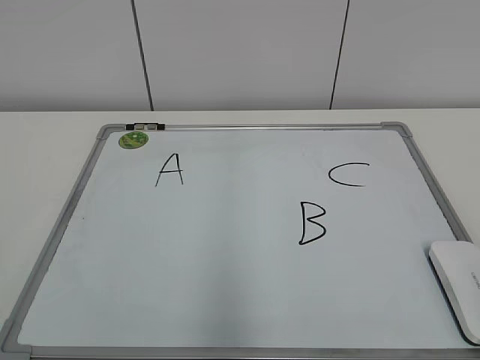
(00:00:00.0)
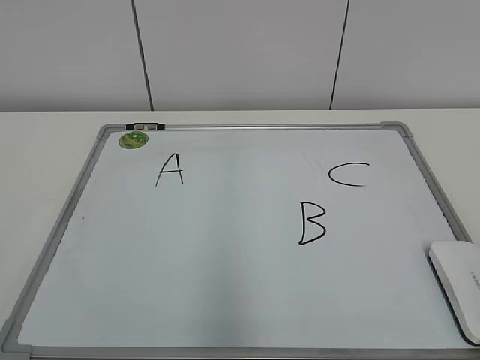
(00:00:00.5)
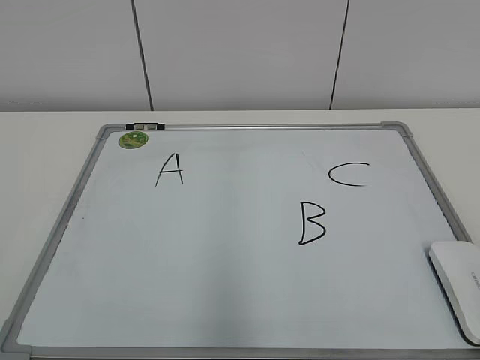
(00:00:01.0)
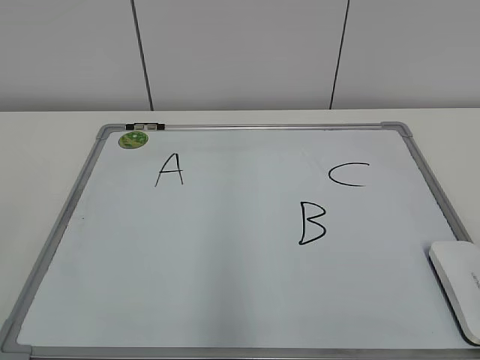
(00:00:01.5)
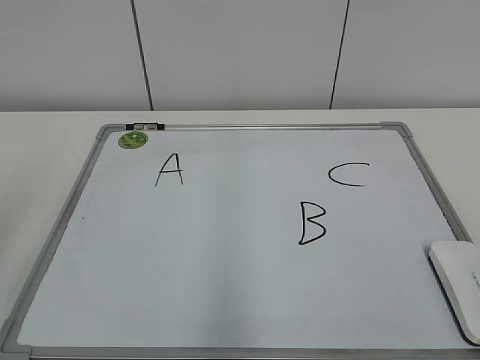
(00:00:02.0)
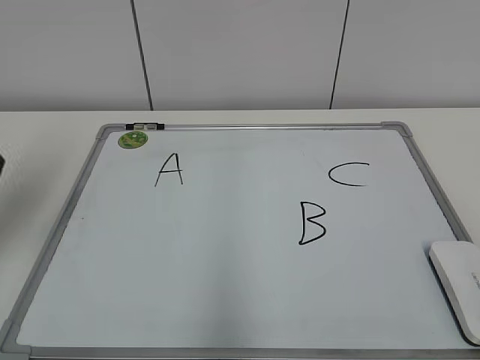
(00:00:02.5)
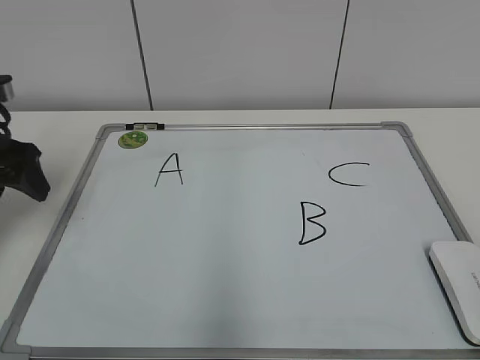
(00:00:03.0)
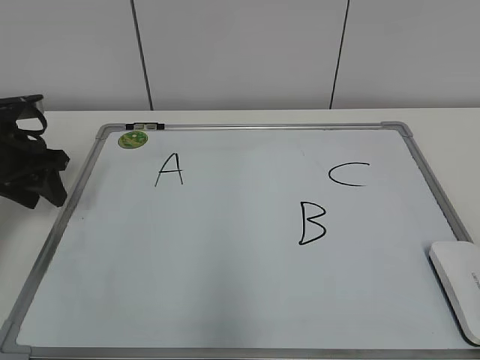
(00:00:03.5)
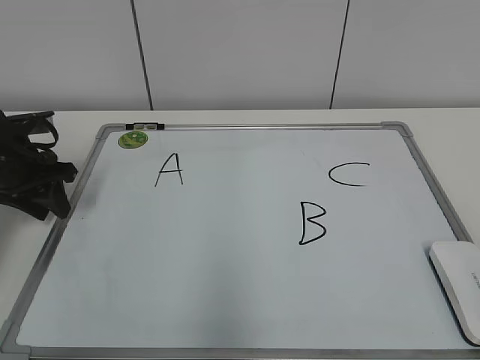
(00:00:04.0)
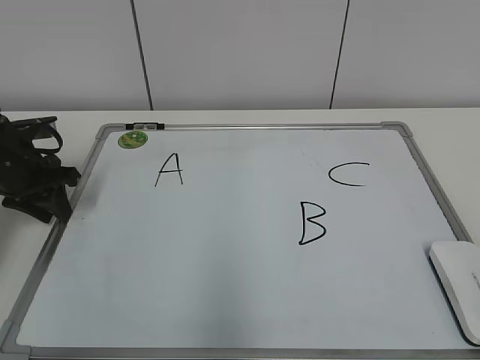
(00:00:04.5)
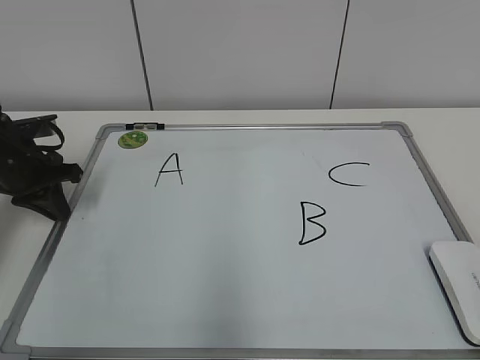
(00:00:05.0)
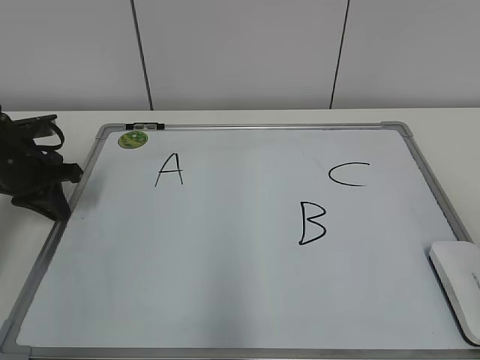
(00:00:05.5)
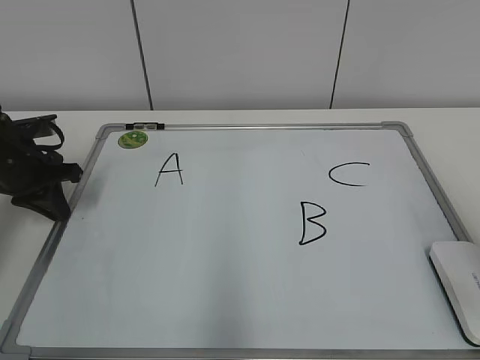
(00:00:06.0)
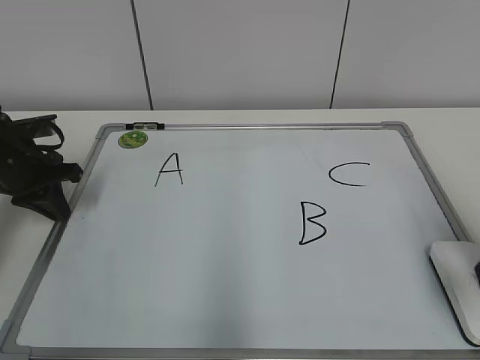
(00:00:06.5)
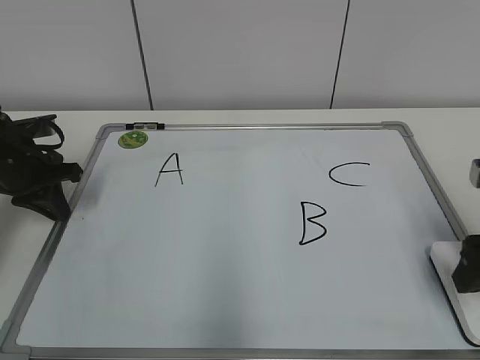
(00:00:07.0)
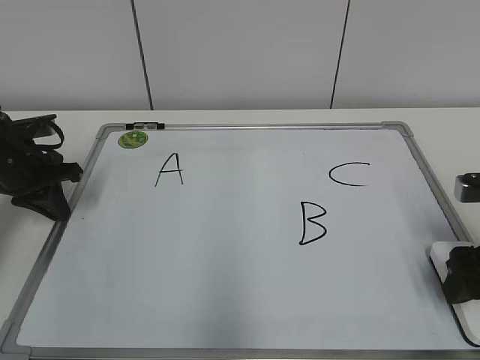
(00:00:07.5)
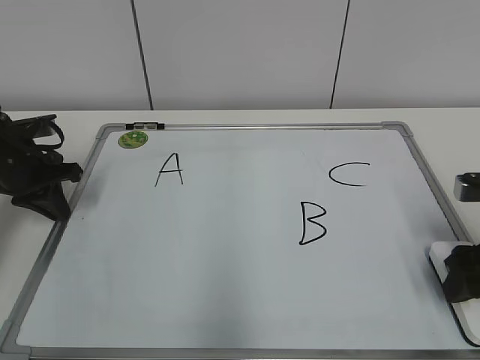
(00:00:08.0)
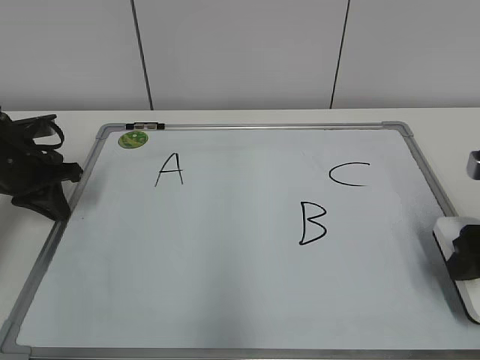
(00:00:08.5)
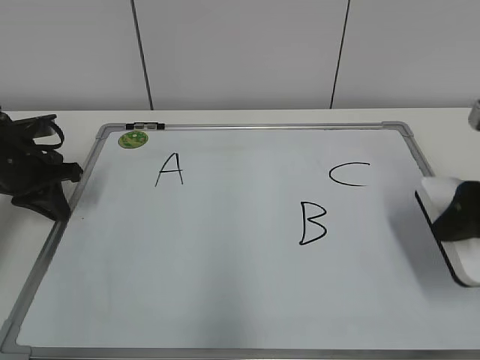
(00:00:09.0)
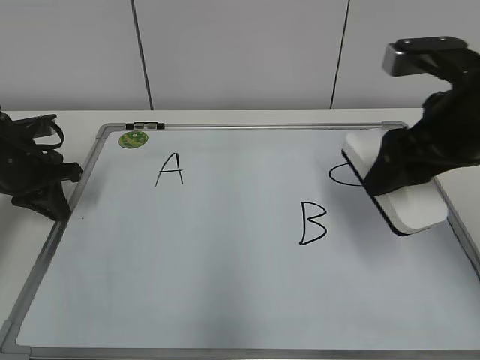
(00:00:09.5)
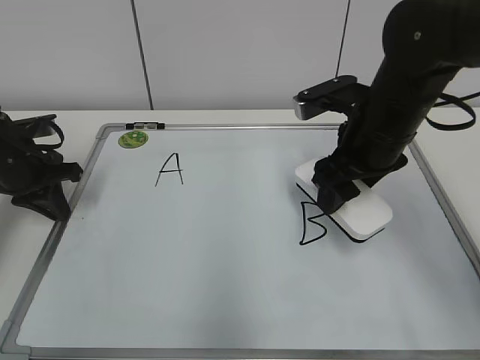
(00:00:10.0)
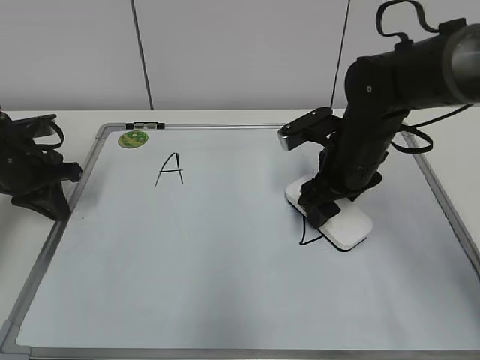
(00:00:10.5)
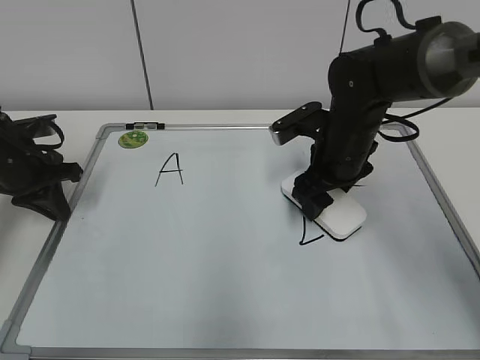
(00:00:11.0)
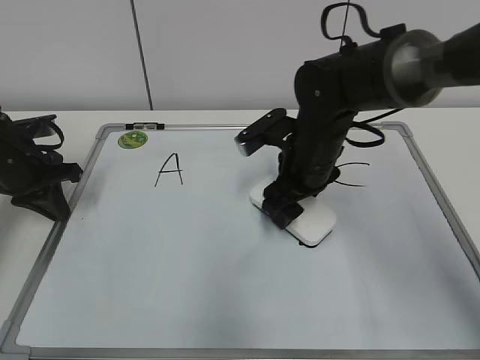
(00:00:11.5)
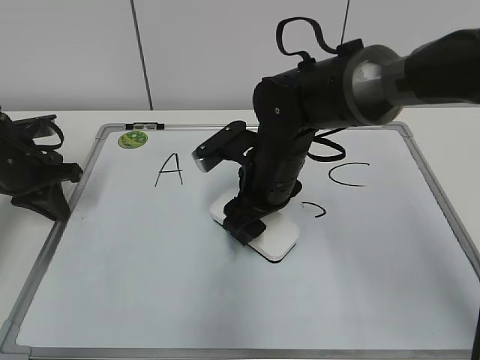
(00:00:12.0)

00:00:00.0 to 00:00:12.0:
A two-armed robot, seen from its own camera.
Task of the whole recording: pick up the eraser on the blackboard and erase the letter "B".
Step, 00:00:00.0 to 00:00:04.5: Hold the drawing board steady with your left hand.
Step, 00:00:05.0 to 00:00:08.0: Grab the eraser with your right hand.
00:00:02.0 to 00:00:04.0: The left gripper heads forward and downward, covering about 30 cm, and closes up.
00:00:04.0 to 00:00:06.0: The left gripper closes.
00:00:06.0 to 00:00:08.0: The right gripper moves downward and forward, approximately 15 cm, and opens, then closes once more.
00:00:08.0 to 00:00:10.0: The right gripper moves to the left, forward and upward, approximately 20 cm.
00:00:10.0 to 00:00:12.0: The right gripper travels to the left and downward by some 15 cm.

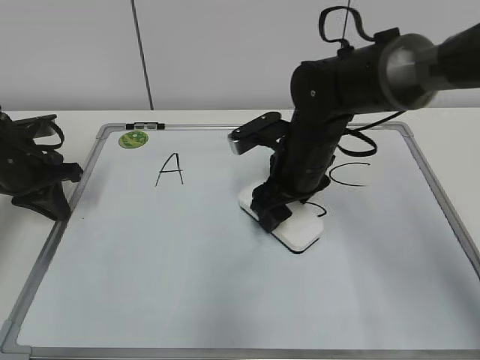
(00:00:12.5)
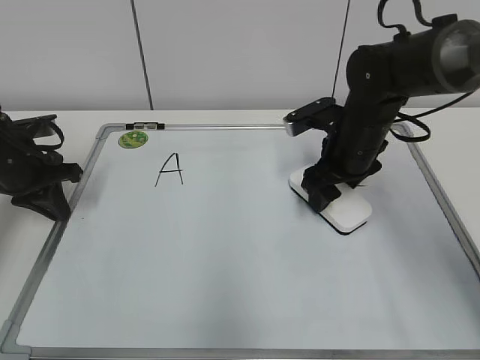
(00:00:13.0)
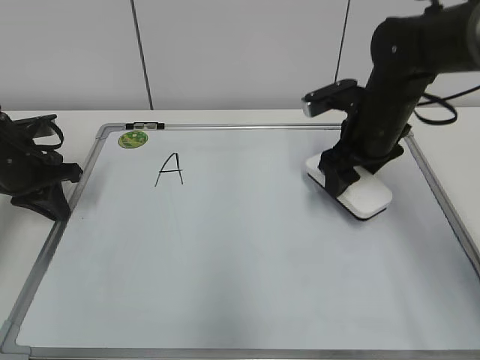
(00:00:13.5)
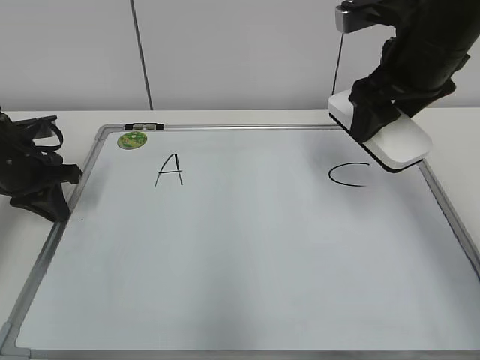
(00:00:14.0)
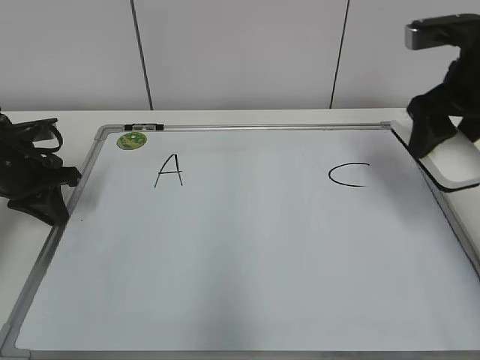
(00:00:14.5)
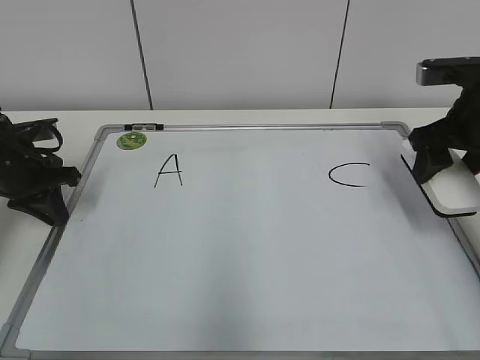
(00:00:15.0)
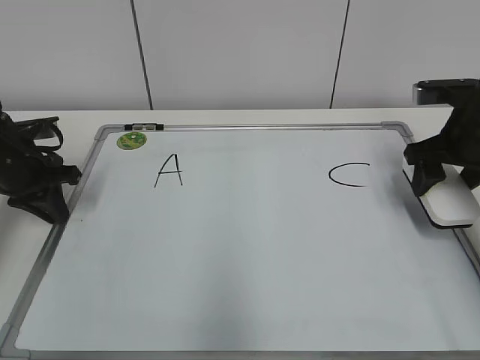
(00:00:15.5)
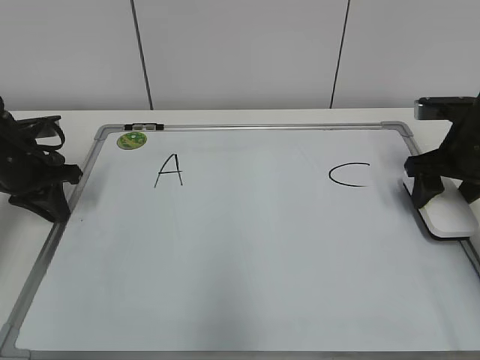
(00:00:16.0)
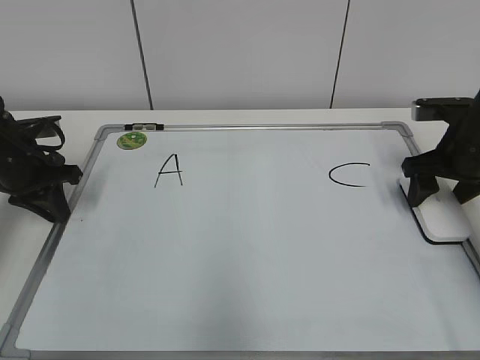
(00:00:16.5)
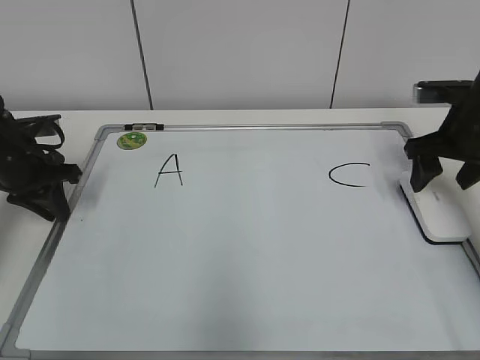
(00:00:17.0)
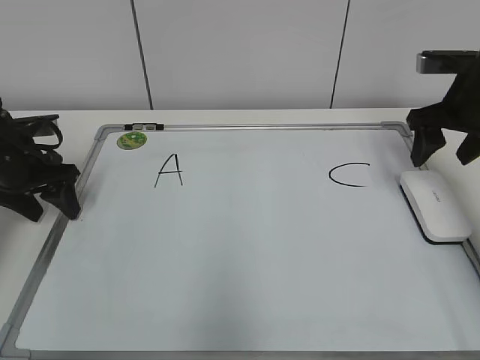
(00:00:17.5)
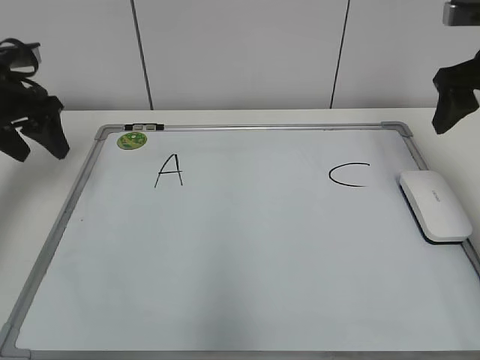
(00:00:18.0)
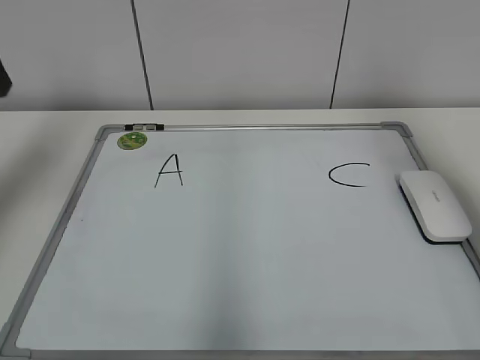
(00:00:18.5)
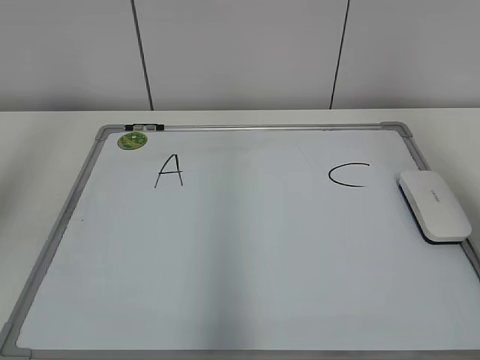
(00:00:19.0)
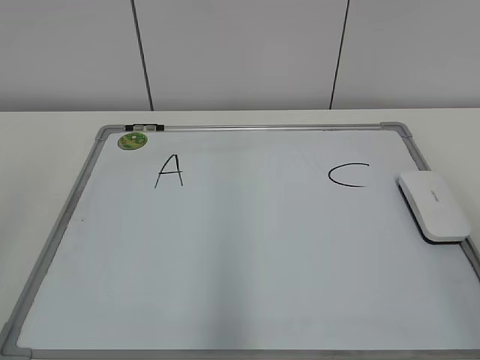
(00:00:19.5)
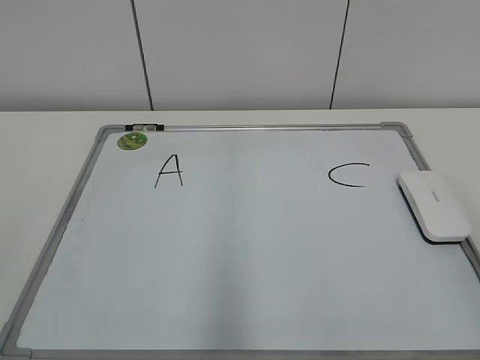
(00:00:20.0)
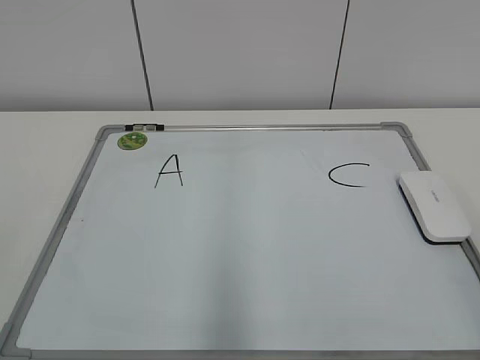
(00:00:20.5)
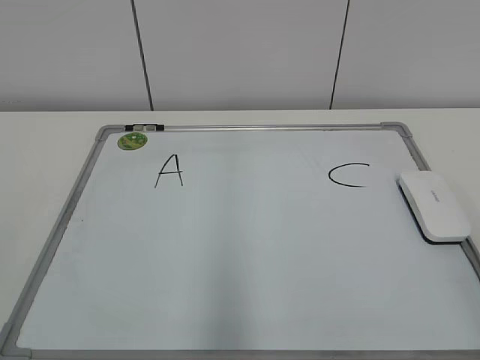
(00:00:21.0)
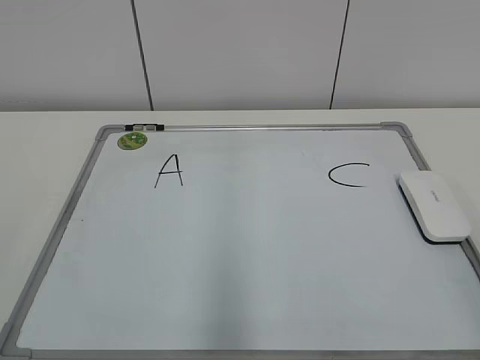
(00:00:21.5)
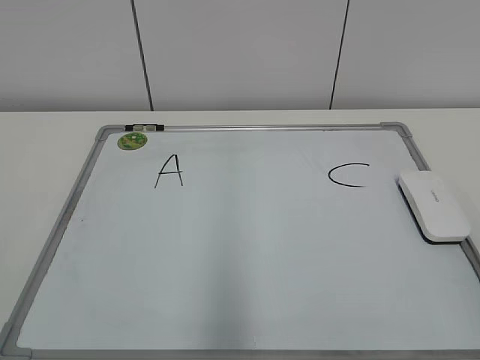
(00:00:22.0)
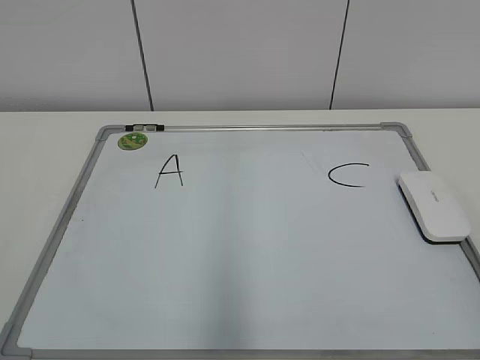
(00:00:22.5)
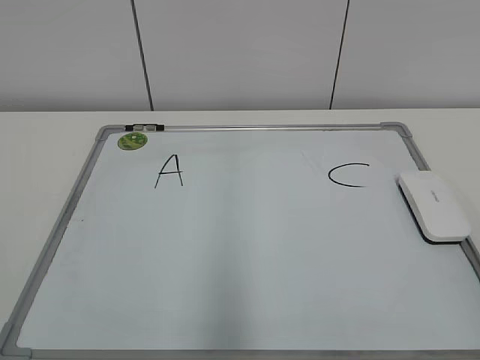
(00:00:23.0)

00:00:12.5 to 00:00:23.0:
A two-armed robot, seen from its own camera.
Task of the whole recording: pick up the eraser on the blackboard and erase the letter "B".
Step, 00:00:13.5 to 00:00:16.5: Put down the eraser with your right hand.
00:00:12.5 to 00:00:14.5: The right gripper goes about 20 cm to the right and upward.
00:00:14.5 to 00:00:16.5: The right gripper travels downward by about 10 cm, and opens its fingers.
00:00:16.5 to 00:00:19.0: The two grippers go approximately 35 cm upward and backward. The left gripper opens its fingers.
00:00:19.0 to 00:00:21.0: The right gripper is displaced downward and backward by about 25 cm, while the left gripper travels backward and downward by approximately 25 cm.
